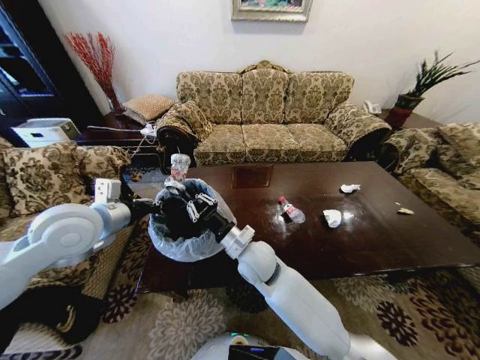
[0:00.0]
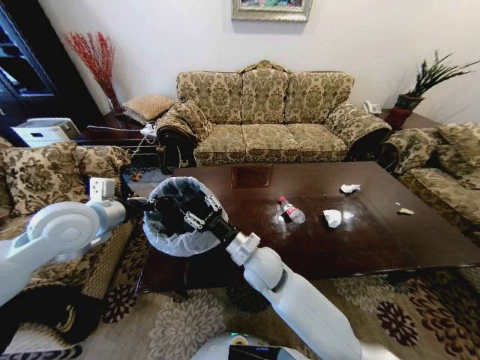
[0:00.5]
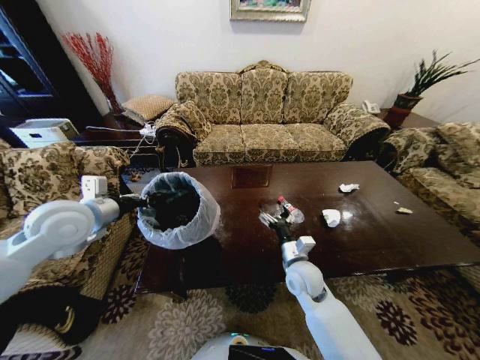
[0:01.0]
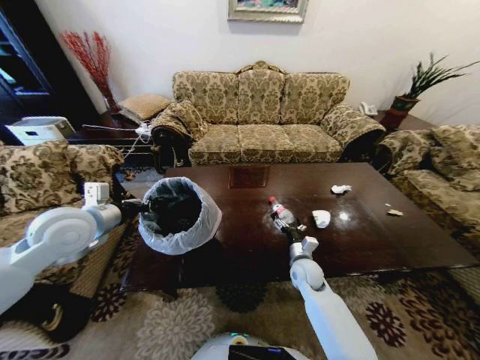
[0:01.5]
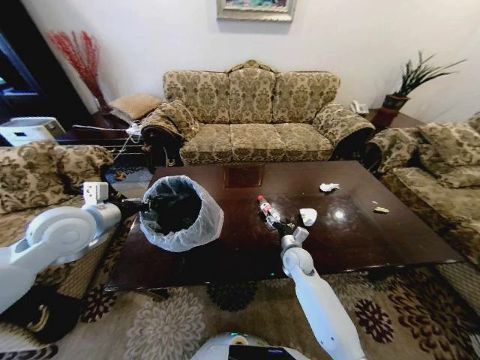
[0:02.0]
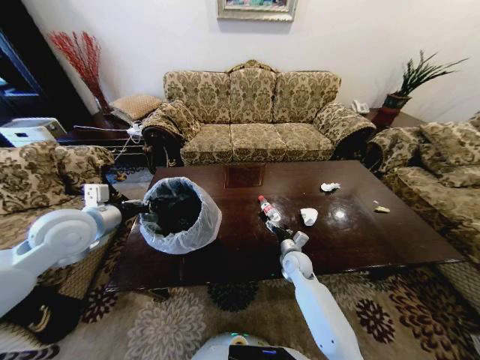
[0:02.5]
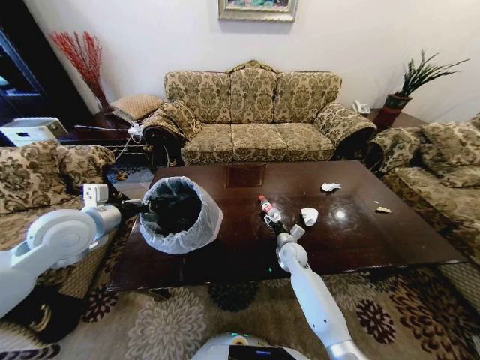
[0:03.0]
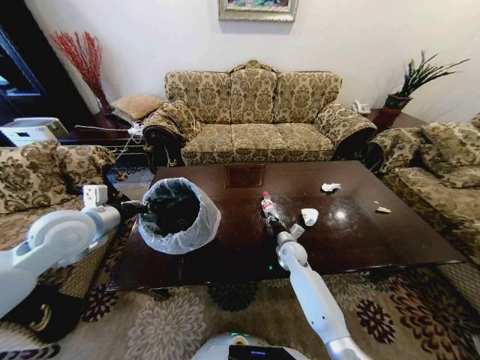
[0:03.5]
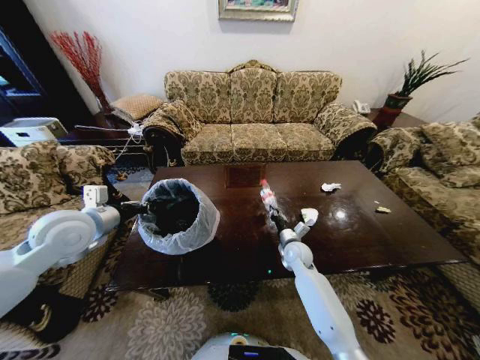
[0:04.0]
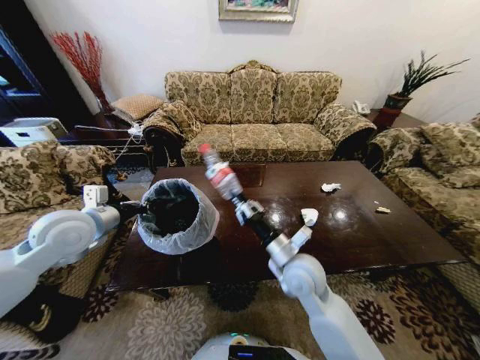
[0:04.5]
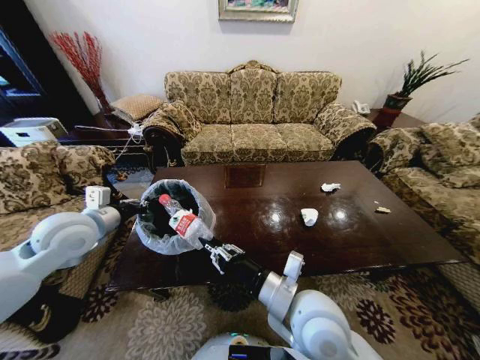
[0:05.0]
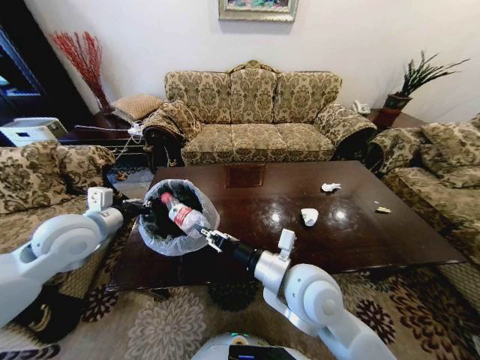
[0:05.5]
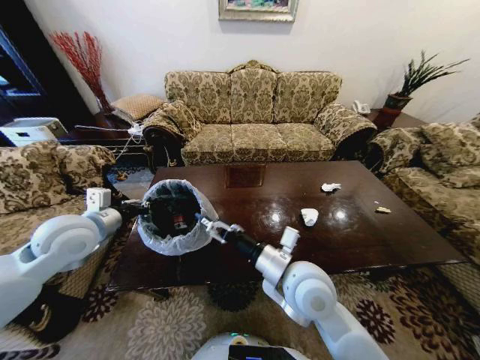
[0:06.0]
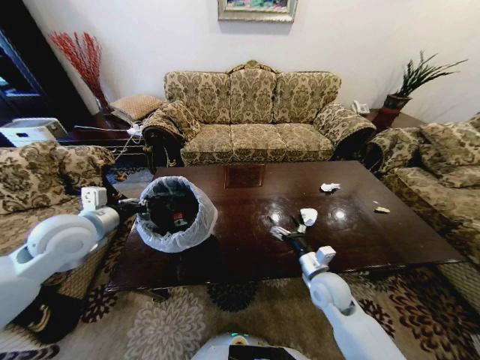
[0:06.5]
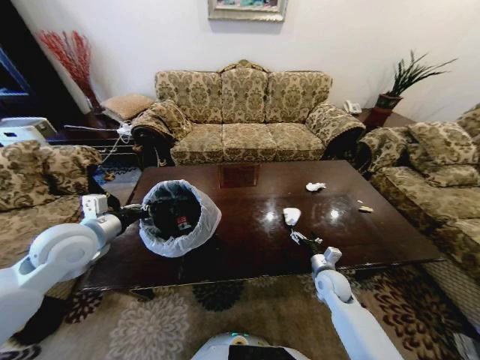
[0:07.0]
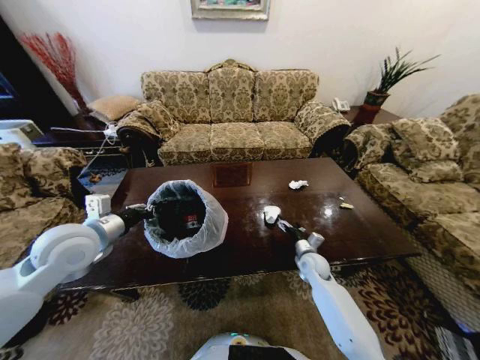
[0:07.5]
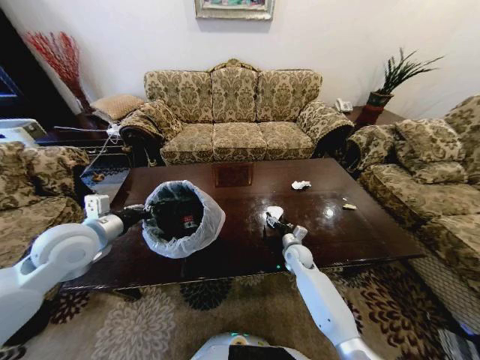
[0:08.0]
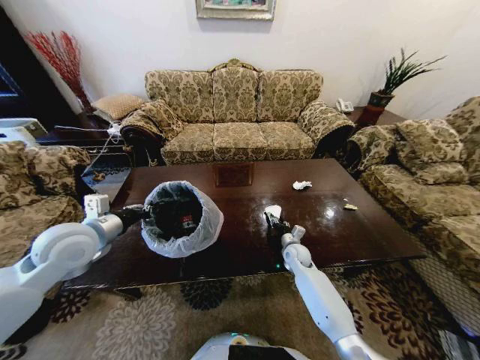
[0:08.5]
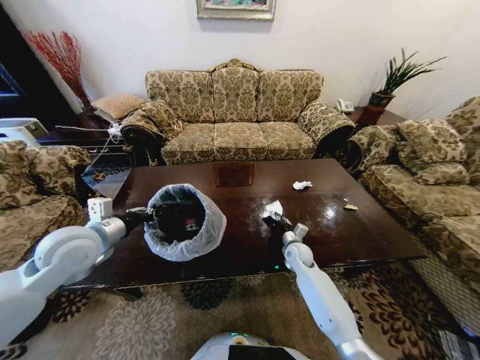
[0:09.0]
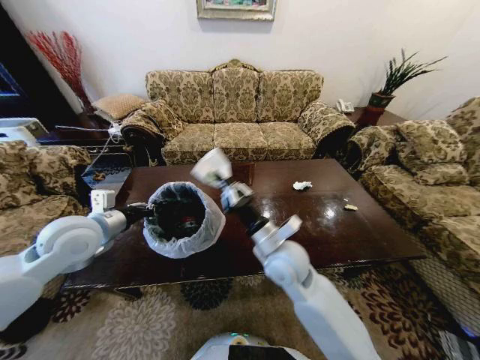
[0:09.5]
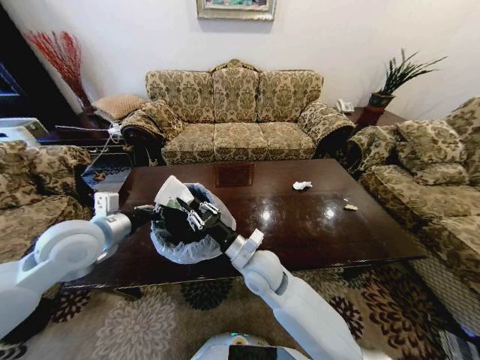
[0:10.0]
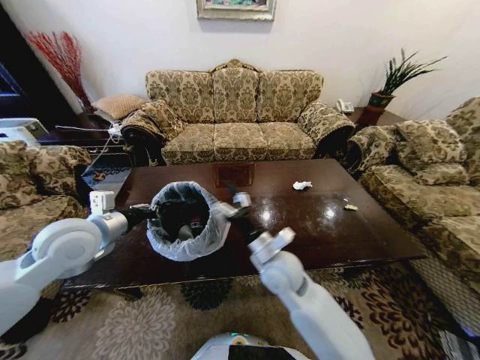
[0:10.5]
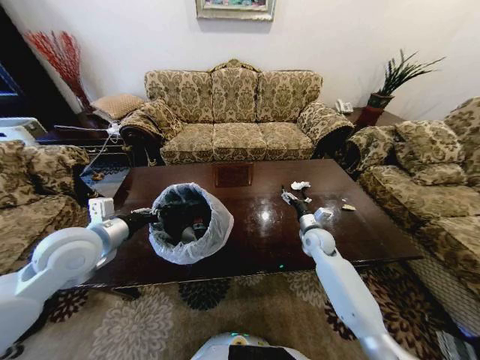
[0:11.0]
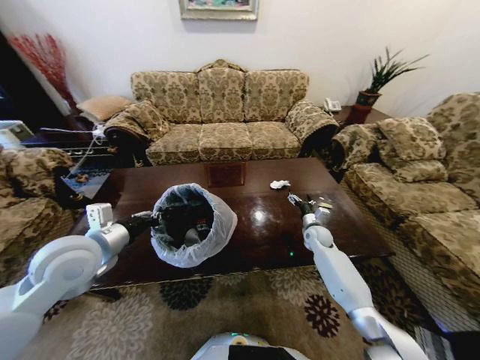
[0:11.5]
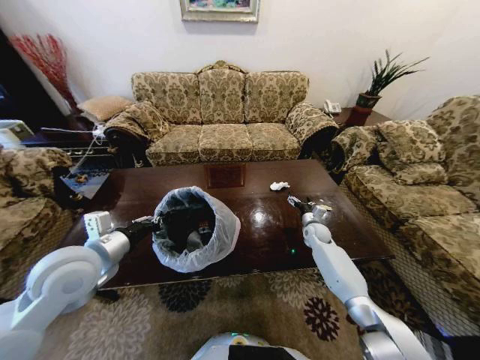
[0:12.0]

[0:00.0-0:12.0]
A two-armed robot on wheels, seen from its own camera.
Task of the whole recording: Move to the front of the table and place the trash on the table into the trash bin.
0:00.0 to 0:02.0: The right gripper moves to the right, downward and forward, roughly 25 cm, and opens.
0:02.0 to 0:04.0: The right gripper closes its fingers.
0:04.0 to 0:06.0: The right gripper moves upward and backward, approximately 30 cm, and opens up.
0:06.0 to 0:08.0: The right gripper travels downward, forward and to the right by about 30 cm.
0:08.0 to 0:10.0: The right gripper travels upward, to the left and backward by approximately 30 cm, and closes its fingers.
0:10.0 to 0:12.0: The right gripper goes about 40 cm to the right, forward and downward, and opens up.

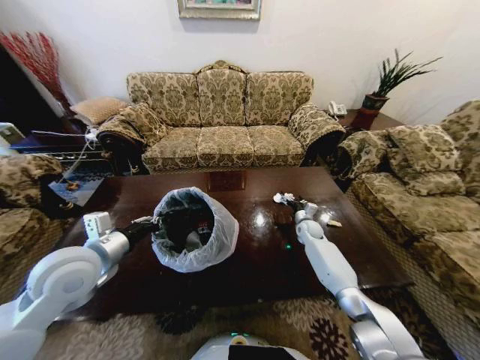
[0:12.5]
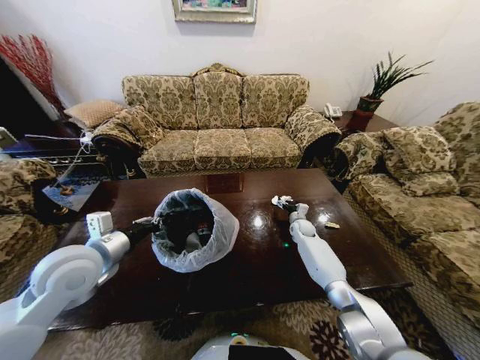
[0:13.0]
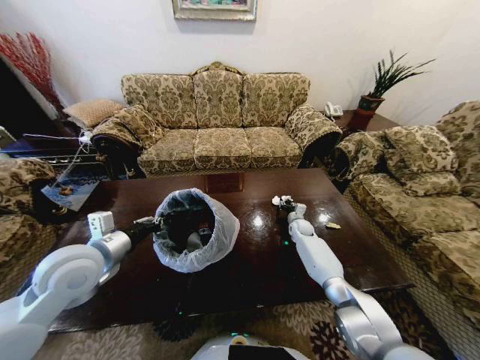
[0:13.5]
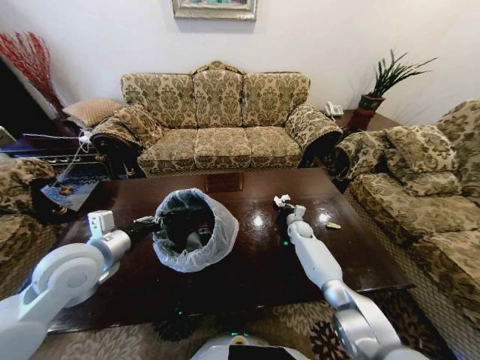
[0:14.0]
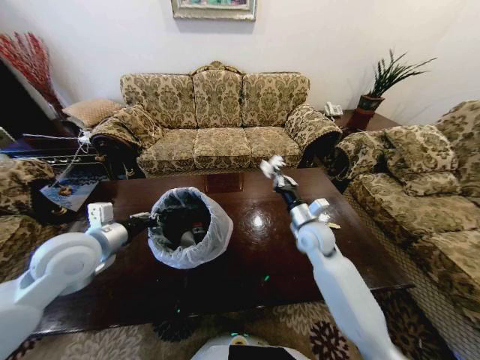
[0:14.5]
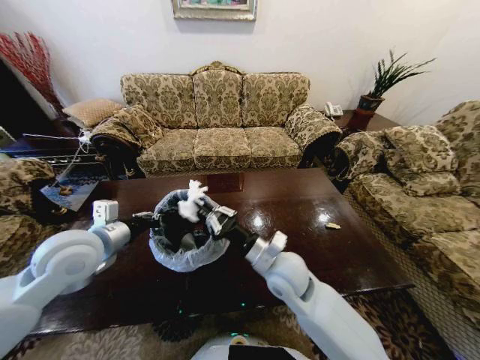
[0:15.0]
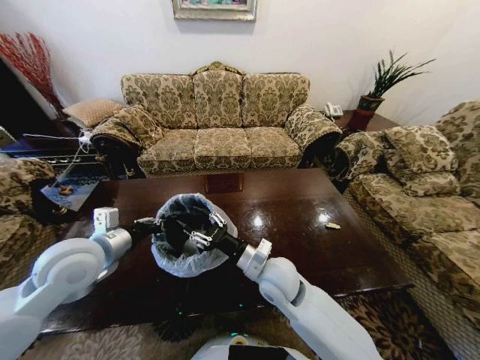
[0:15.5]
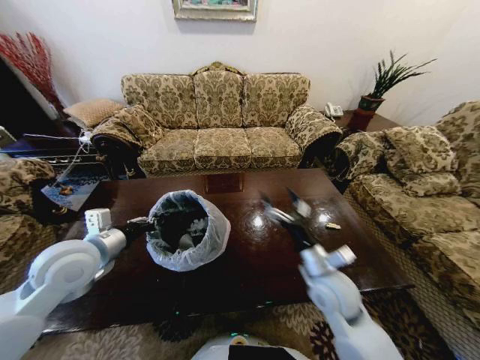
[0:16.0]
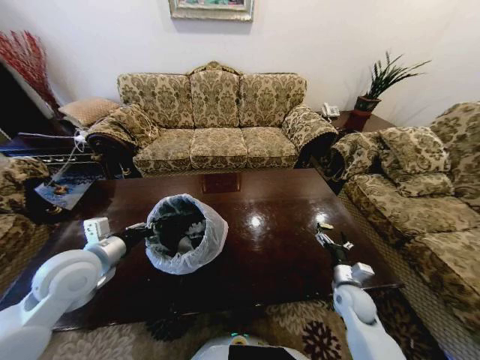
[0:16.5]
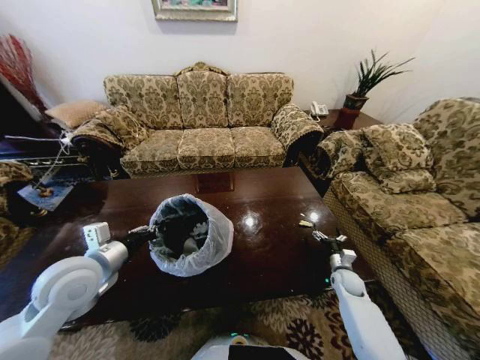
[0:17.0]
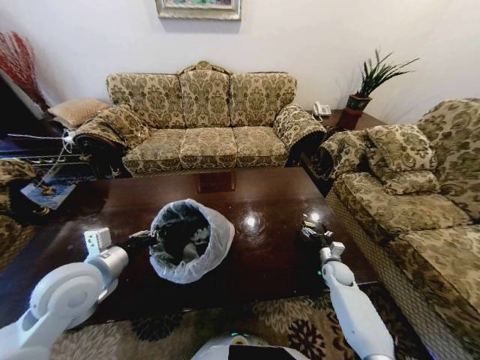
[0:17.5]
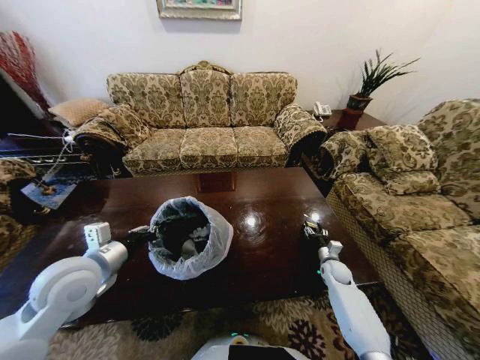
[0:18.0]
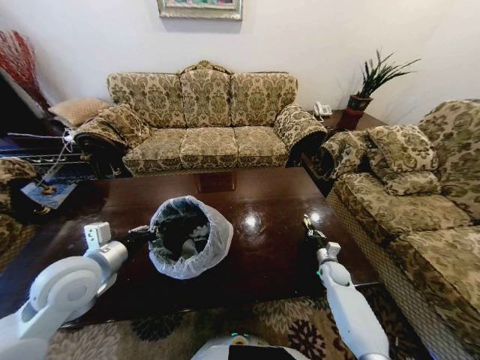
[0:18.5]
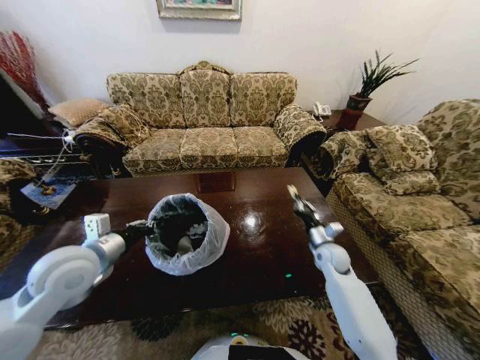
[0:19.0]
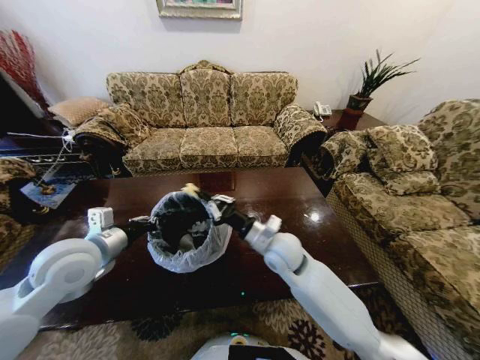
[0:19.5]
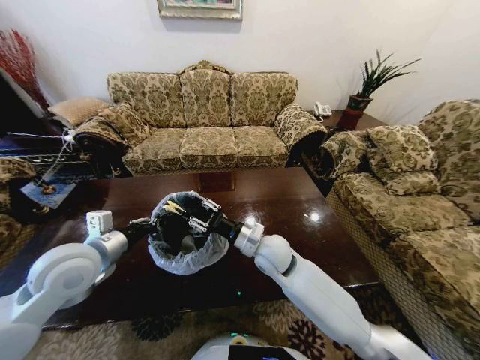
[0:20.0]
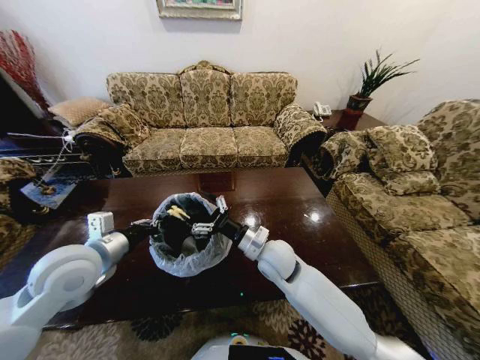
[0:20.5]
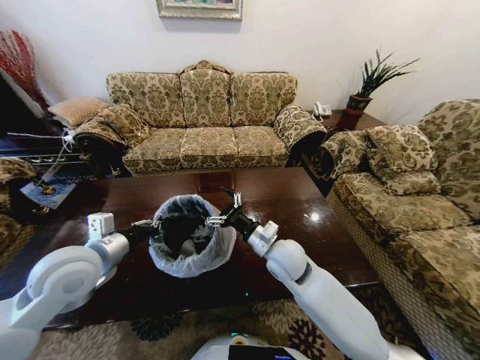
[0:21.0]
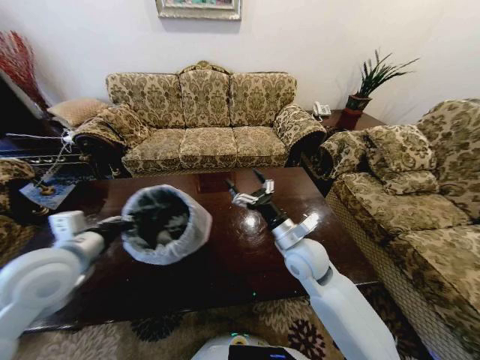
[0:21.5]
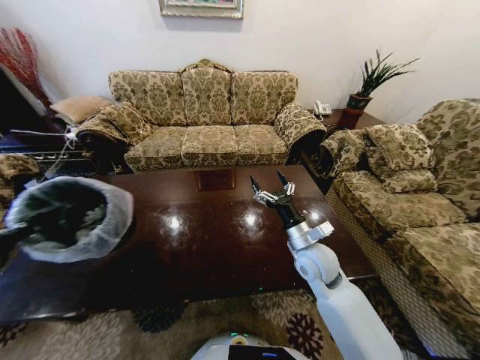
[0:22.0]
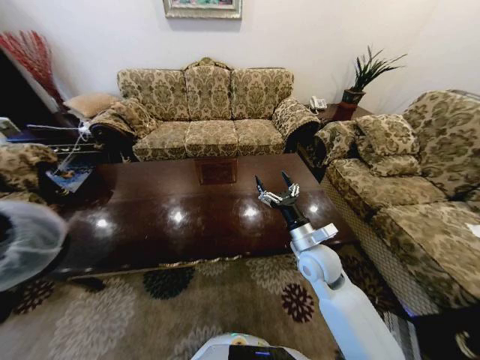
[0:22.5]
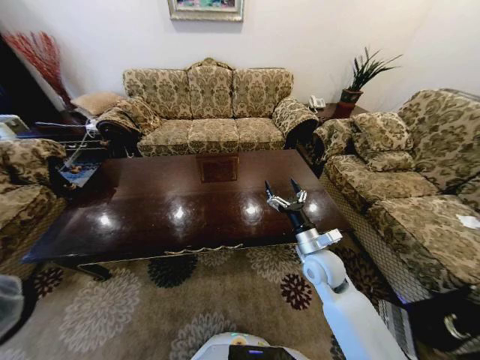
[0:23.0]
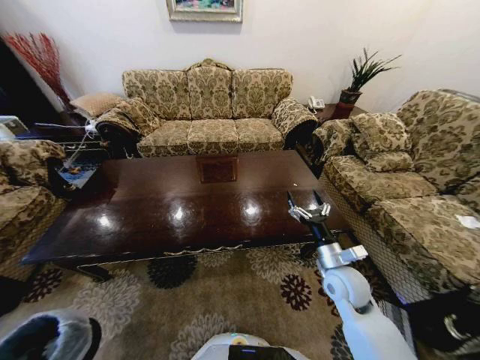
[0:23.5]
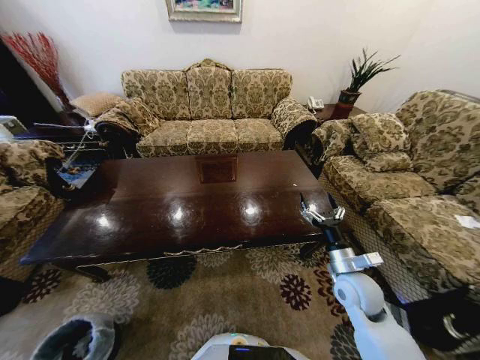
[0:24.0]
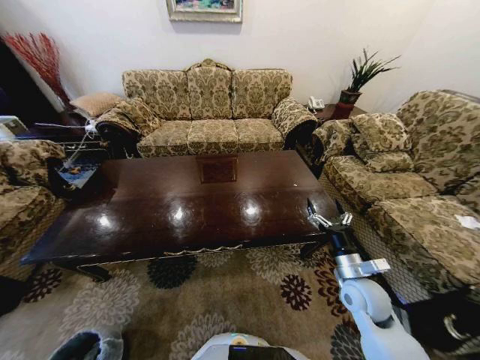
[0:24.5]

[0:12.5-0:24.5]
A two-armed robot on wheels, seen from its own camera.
Task of the whole recording: Move to the front of the table and place the trash on the table into the trash bin.
0:12.5 to 0:14.5: The right gripper goes about 20 cm upward, backward and to the left, and closes its fingers.
0:14.5 to 0:16.5: The right gripper shifts approximately 25 cm downward, to the right and backward, and opens up.
0:16.5 to 0:18.5: The right gripper moves forward and downward, roughly 15 cm, and closes its fingers.
0:18.5 to 0:20.5: The right gripper heads to the left and upward, covering some 35 cm, and opens.
0:20.5 to 0:22.5: The left gripper goes approximately 25 cm to the left and backward; the right gripper heads to the right, covering some 10 cm.
0:22.5 to 0:24.5: The right gripper heads to the right, backward and downward, covering roughly 15 cm. Meanwhile the left gripper shifts approximately 50 cm downward.

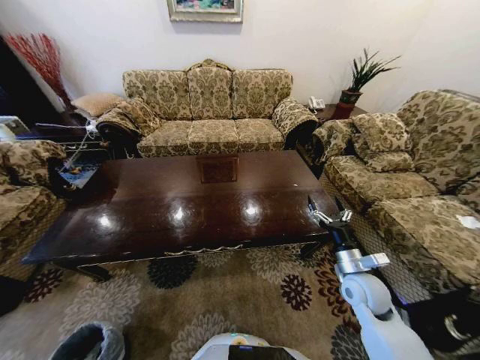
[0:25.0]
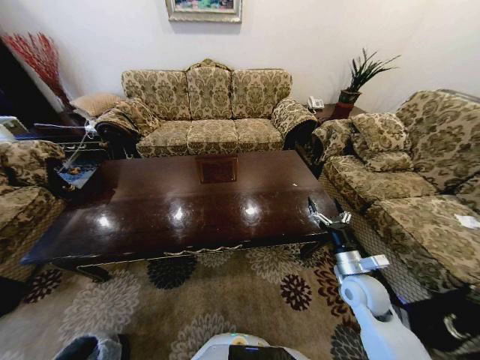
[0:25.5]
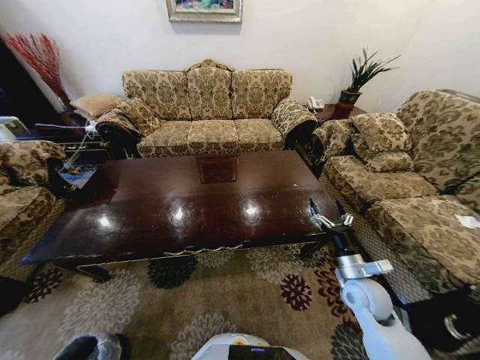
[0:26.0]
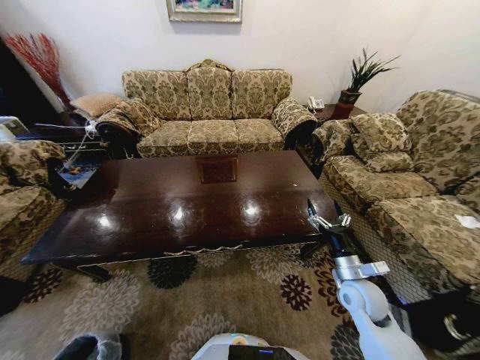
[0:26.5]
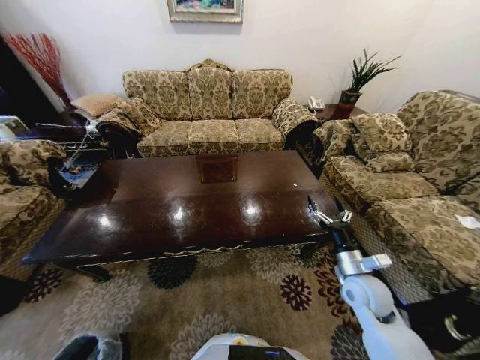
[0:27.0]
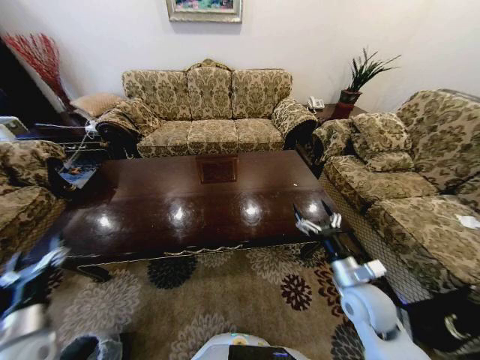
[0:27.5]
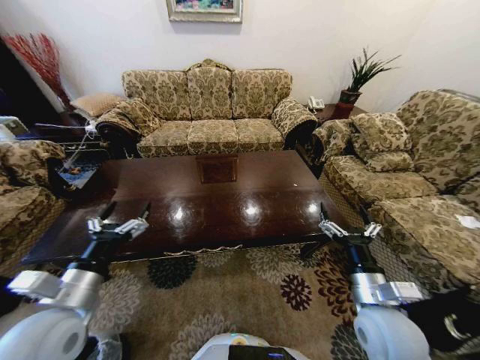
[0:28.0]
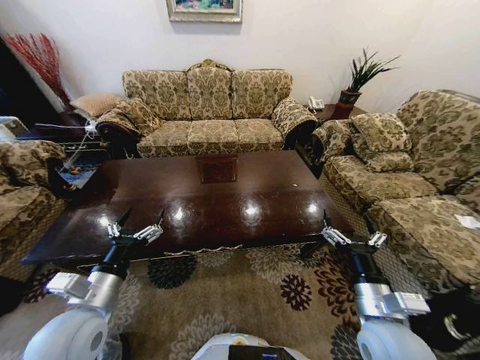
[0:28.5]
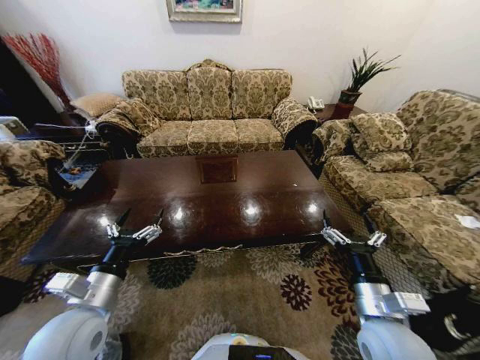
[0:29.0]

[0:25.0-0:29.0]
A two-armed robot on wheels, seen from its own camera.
Task of the whole recording: Move to the front of the table and place the trash on the table into the trash bin.
0:27.0 to 0:29.0: The right gripper moves backward and upward, some 15 cm. Meanwhile the left gripper is displaced upward, forward and to the right by roughly 50 cm.
